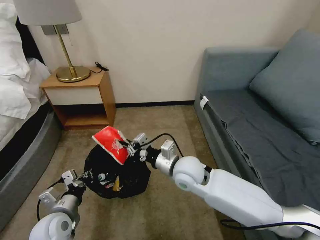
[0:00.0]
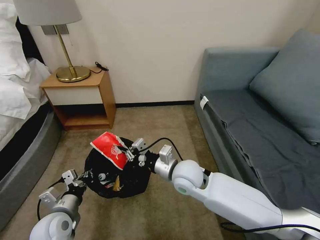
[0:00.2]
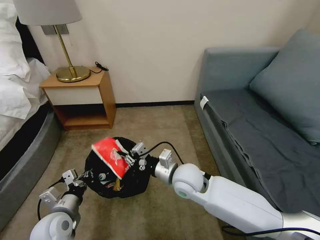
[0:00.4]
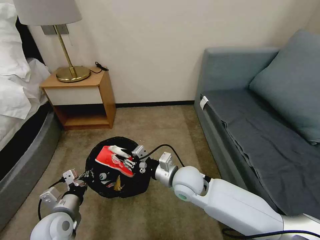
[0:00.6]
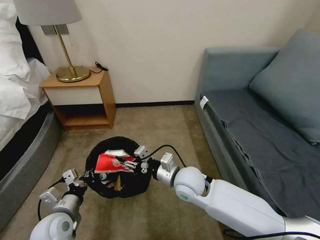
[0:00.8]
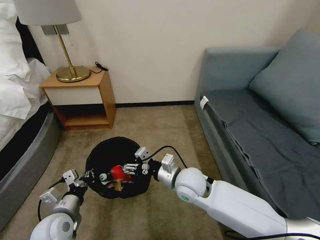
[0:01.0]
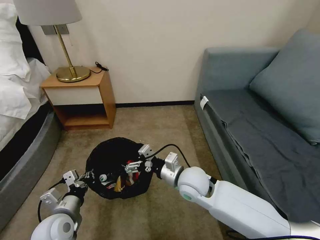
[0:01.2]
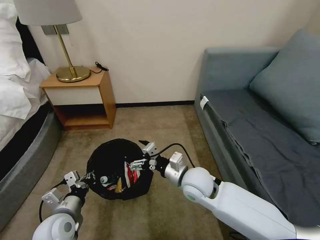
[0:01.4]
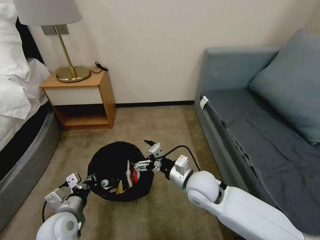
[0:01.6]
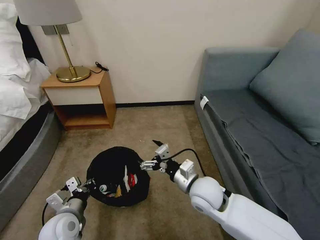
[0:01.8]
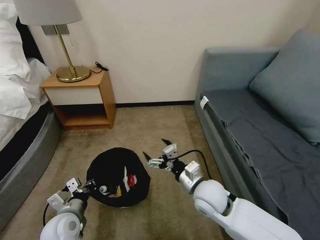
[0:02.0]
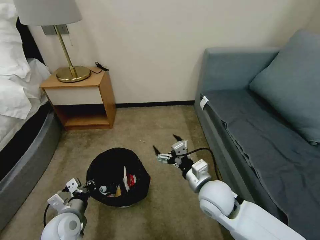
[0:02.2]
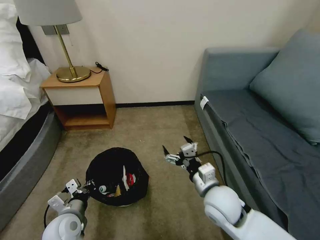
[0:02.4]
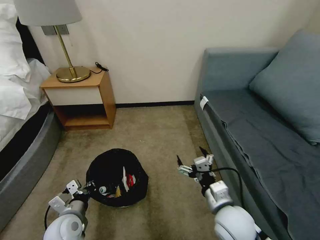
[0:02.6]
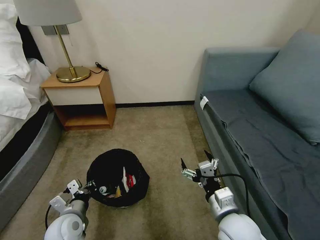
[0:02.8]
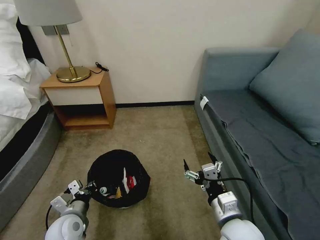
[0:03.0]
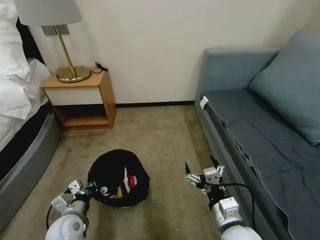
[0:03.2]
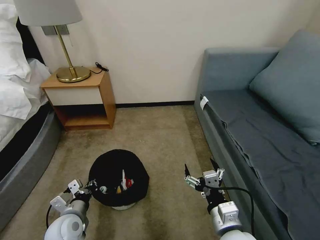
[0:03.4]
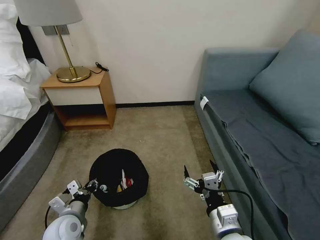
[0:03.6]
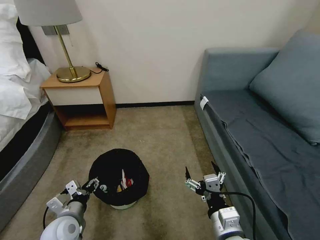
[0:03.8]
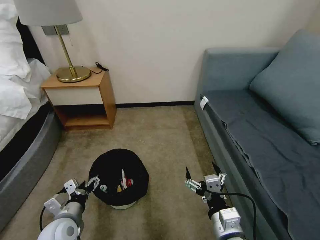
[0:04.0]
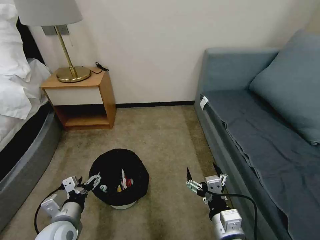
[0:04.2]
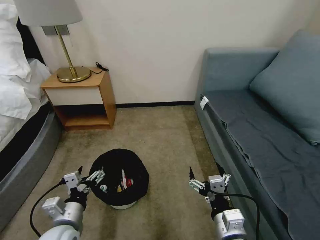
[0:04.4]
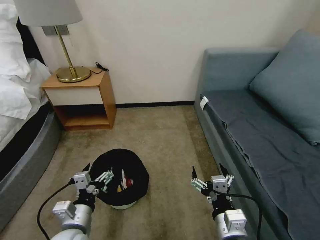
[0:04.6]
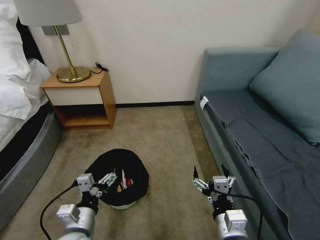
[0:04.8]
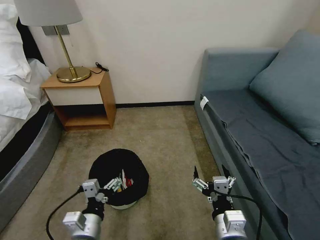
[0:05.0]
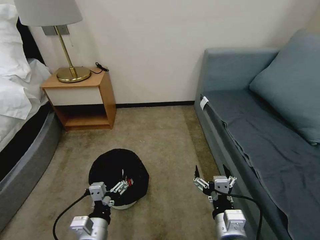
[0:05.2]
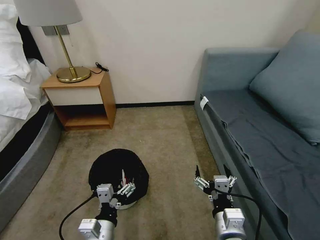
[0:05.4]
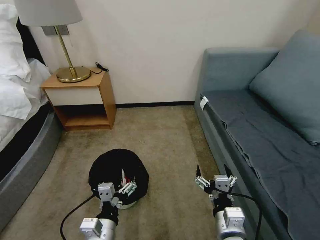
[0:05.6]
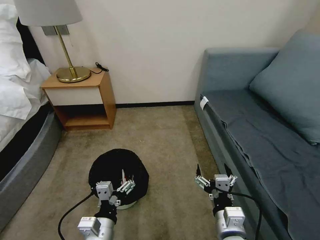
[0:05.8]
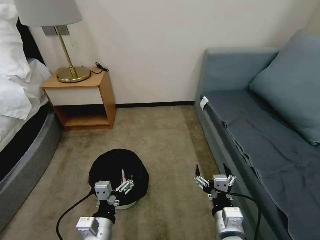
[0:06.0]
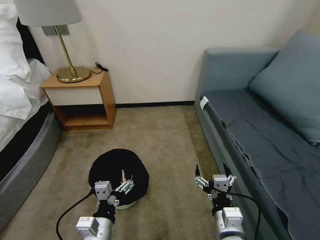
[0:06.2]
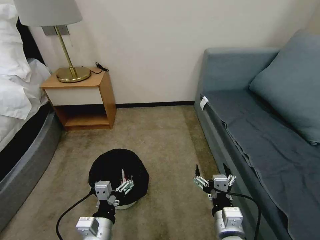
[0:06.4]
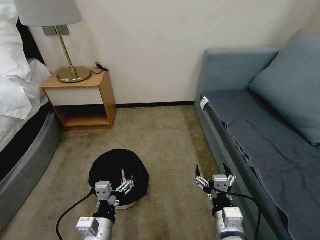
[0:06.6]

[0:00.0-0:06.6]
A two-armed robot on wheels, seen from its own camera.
Task of the whole recording: Pick up the trash bin, then pick up the garbage on the floor and place it into the trash bin.
0:00.0 to 0:01.6: The right gripper changes place by roughly 5 cm, and opens its fingers.
0:01.6 to 0:03.2: The right gripper shifts some 15 cm backward and to the right.
0:03.2 to 0:05.0: The left gripper heads to the right and backward, covering about 10 cm, and opens up.
0:05.0 to 0:06.6: There are only small adjustments of the grippers.

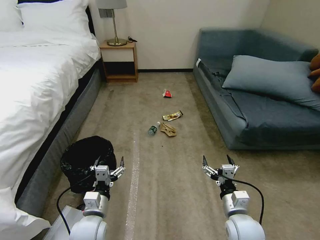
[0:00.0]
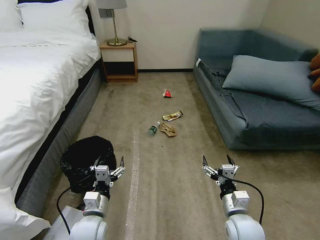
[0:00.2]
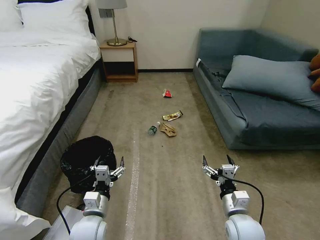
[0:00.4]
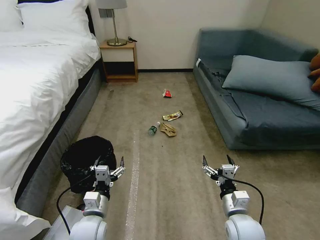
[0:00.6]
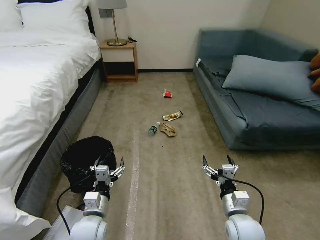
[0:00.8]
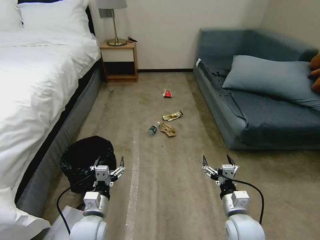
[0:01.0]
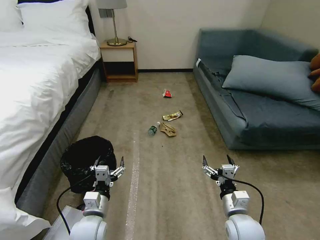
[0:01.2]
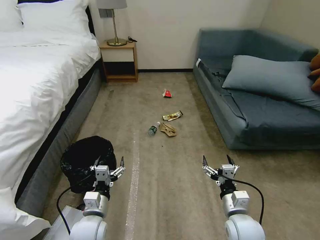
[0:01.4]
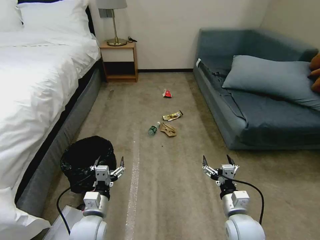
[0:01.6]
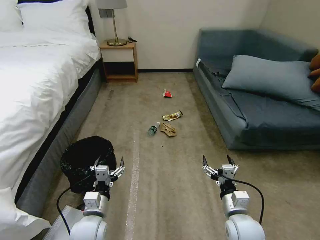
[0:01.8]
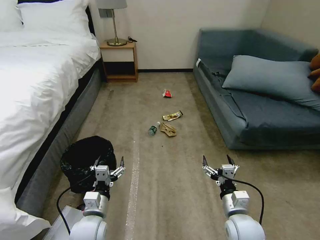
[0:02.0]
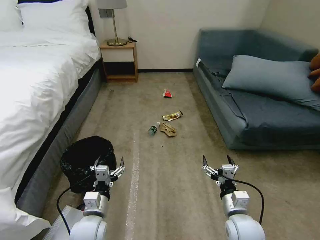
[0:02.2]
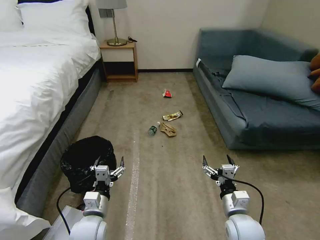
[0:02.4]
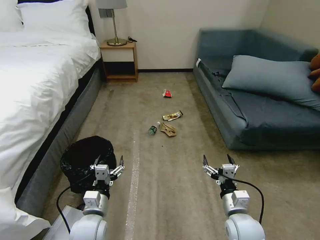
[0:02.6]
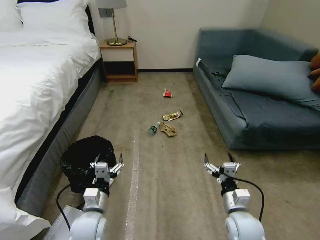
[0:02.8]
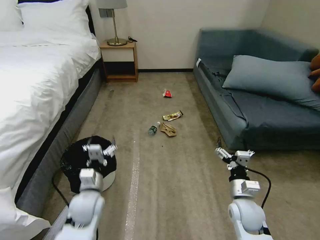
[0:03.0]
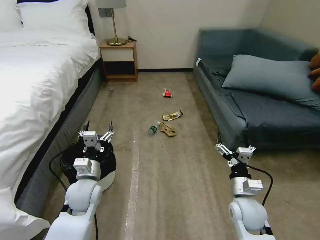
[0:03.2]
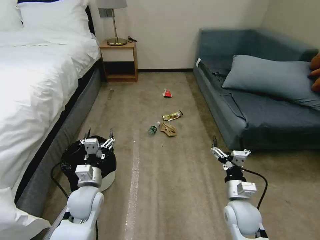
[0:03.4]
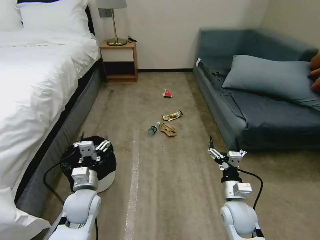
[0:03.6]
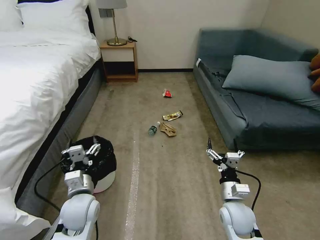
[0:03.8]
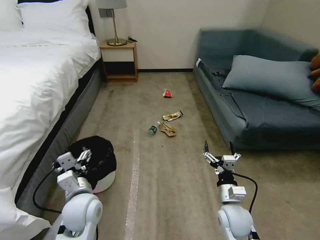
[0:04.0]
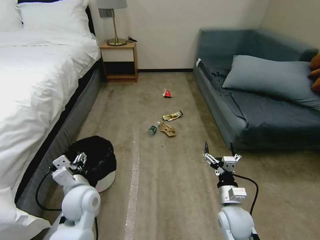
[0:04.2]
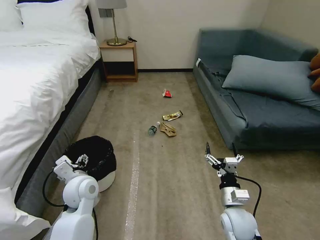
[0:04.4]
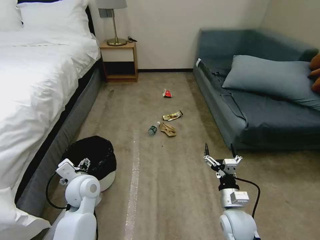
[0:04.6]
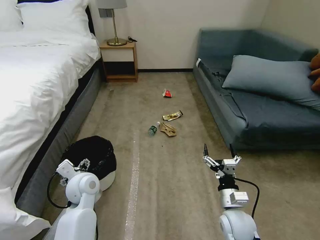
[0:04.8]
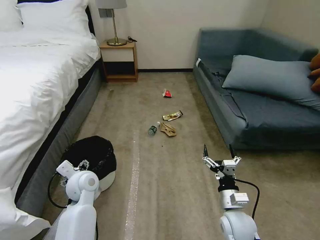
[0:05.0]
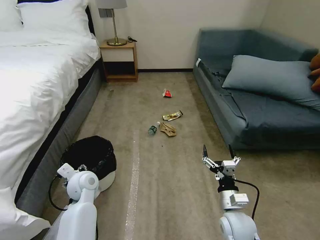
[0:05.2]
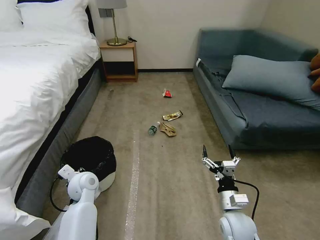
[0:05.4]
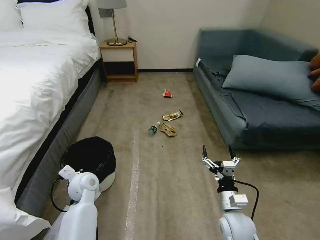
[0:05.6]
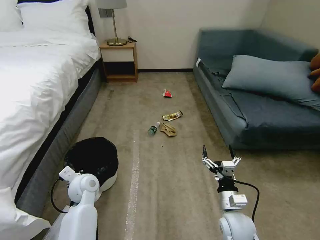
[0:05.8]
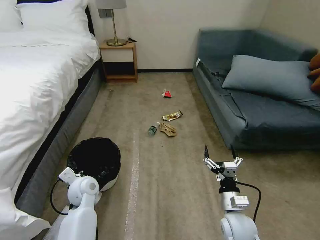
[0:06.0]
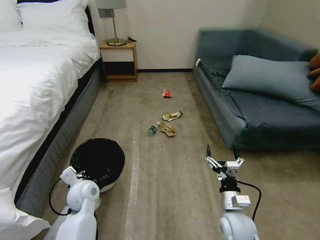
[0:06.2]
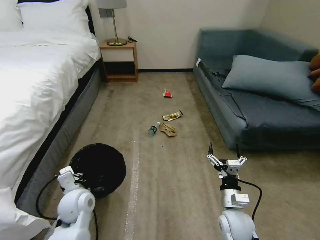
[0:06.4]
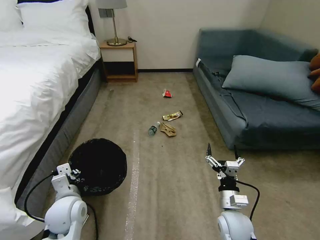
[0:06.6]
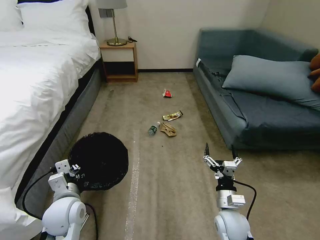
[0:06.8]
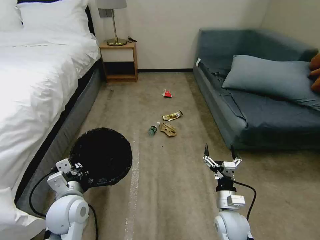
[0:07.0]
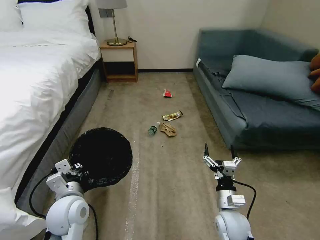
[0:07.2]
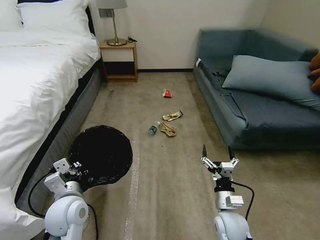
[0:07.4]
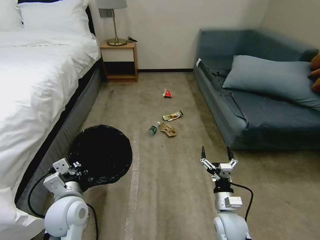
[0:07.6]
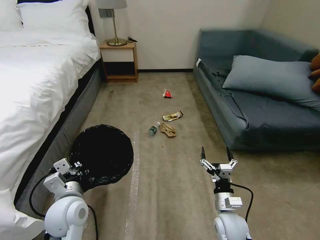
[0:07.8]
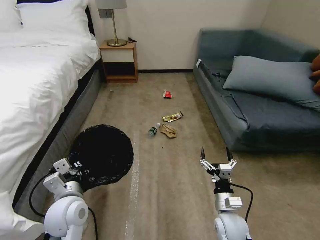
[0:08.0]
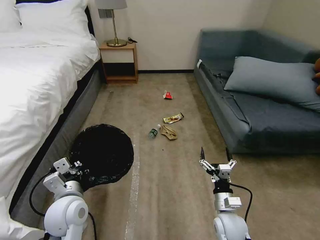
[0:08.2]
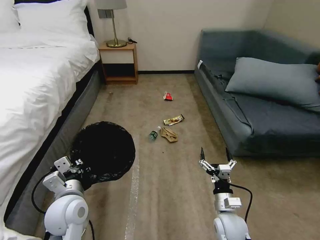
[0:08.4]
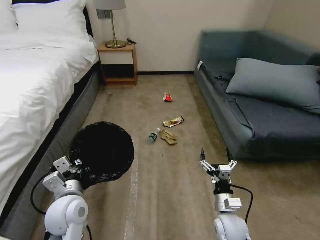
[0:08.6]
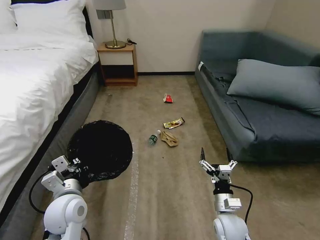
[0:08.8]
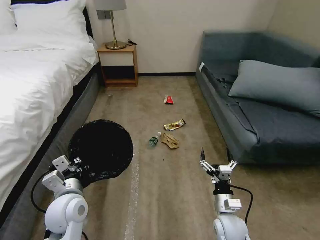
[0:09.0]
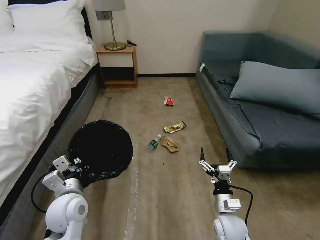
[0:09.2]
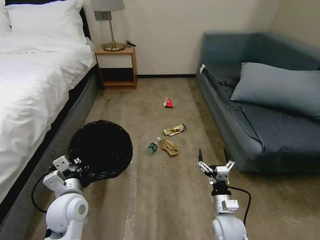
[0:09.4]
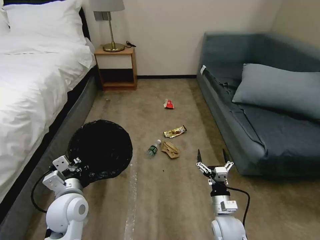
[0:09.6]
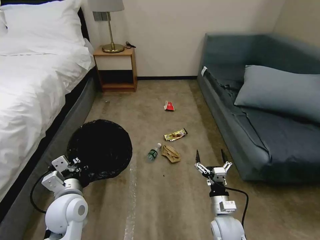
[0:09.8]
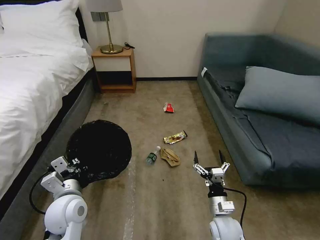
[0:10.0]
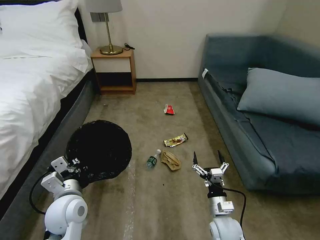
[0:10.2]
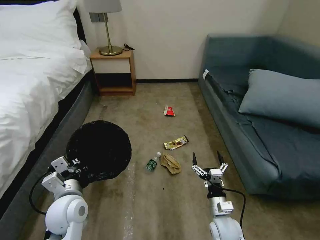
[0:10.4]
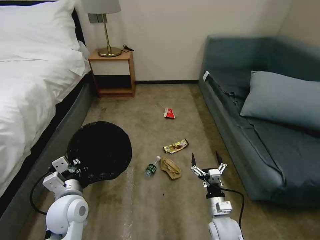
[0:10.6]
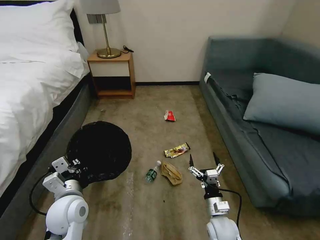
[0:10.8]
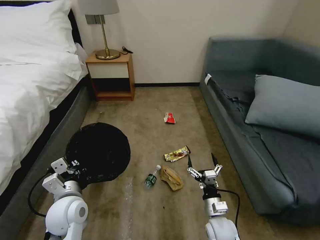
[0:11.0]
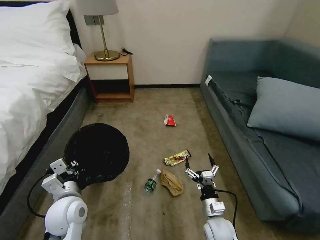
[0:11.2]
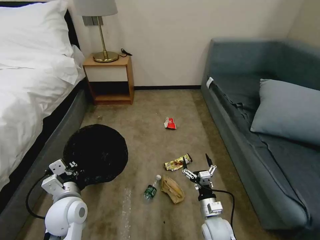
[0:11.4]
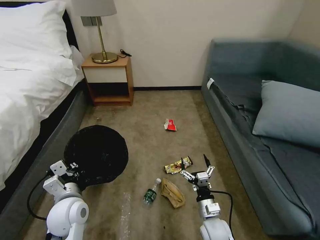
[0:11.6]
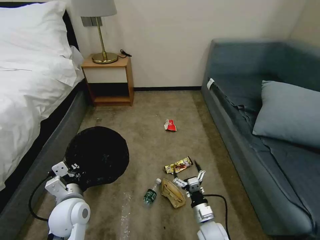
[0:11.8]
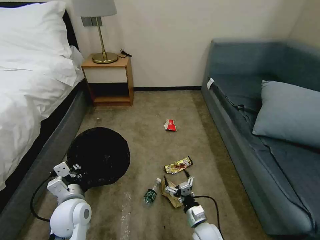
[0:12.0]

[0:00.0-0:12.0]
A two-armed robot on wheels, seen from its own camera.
Task of the whole recording: Pick up the trash bin, then pick up the garbage on the floor and place it into the trash bin.
0:01.6 to 0:03.0: The two grippers go roughly 5 cm forward.
0:04.4 to 0:06.0: The left gripper shifts about 5 cm downward, and closes its fingers.
0:06.0 to 0:07.6: The left gripper travels backward and upward by about 10 cm.
0:10.4 to 0:12.0: The right gripper goes about 5 cm downward.

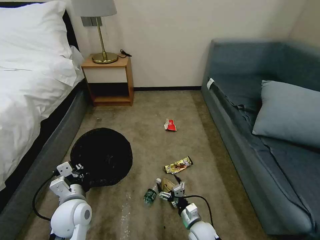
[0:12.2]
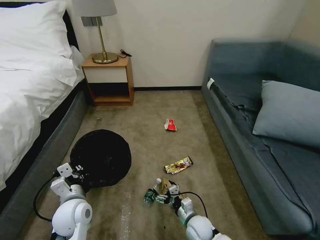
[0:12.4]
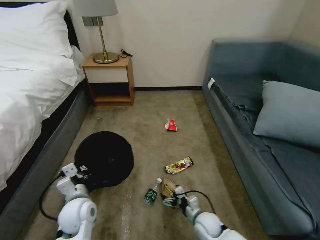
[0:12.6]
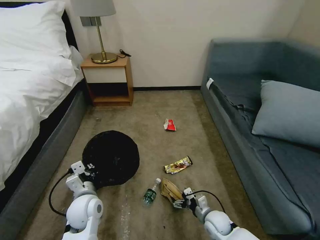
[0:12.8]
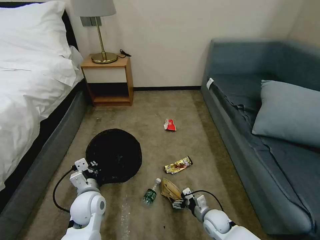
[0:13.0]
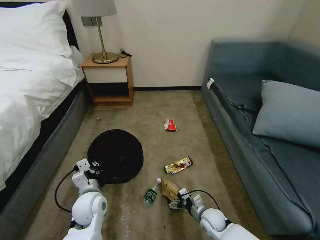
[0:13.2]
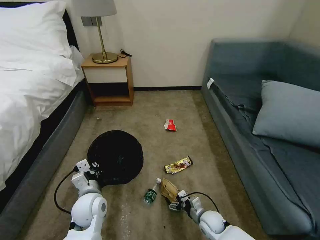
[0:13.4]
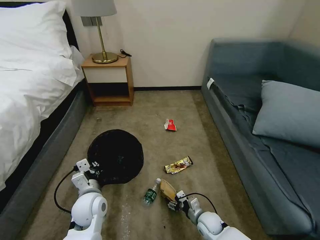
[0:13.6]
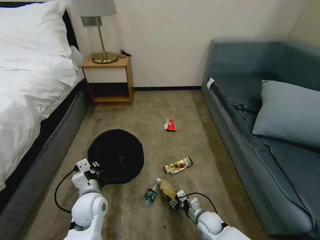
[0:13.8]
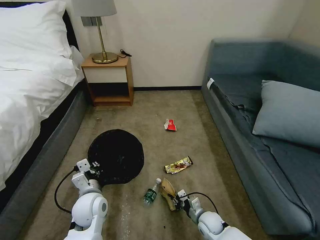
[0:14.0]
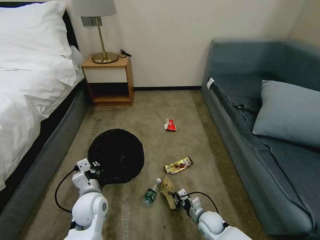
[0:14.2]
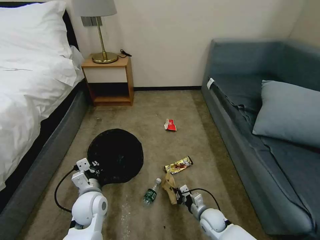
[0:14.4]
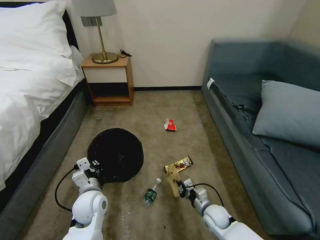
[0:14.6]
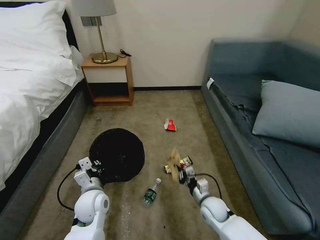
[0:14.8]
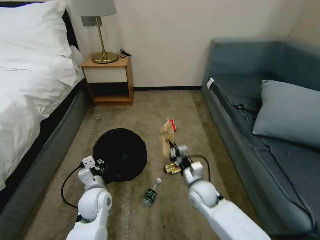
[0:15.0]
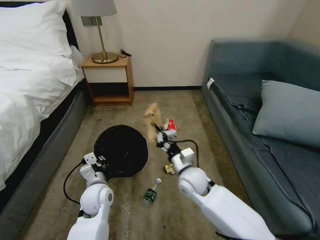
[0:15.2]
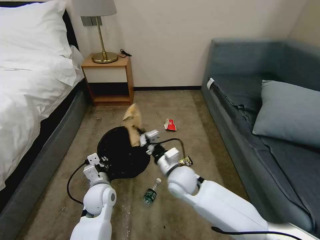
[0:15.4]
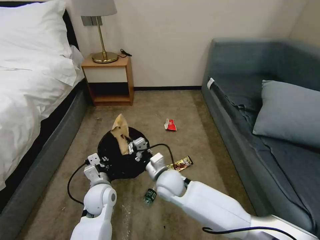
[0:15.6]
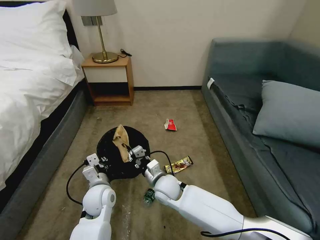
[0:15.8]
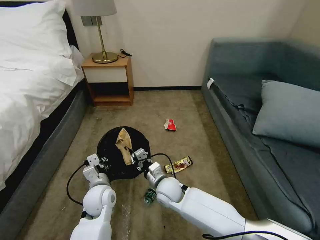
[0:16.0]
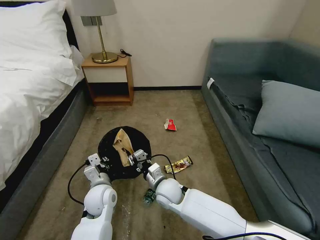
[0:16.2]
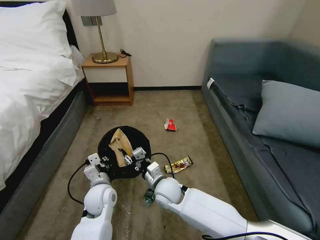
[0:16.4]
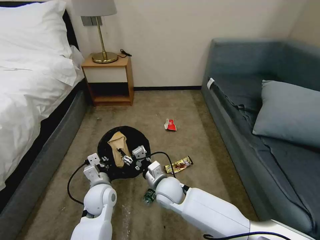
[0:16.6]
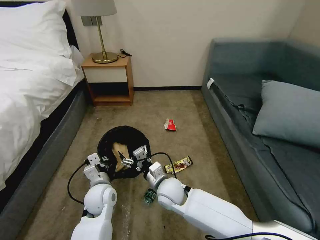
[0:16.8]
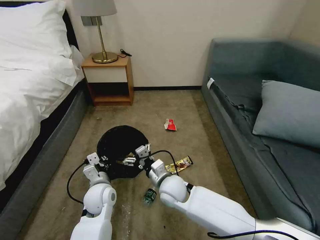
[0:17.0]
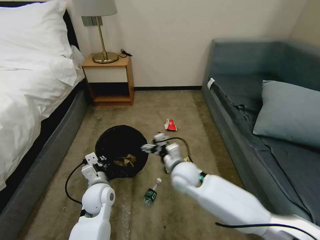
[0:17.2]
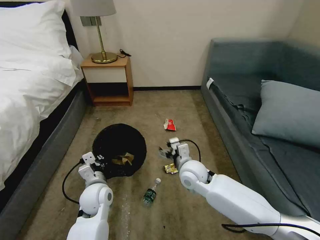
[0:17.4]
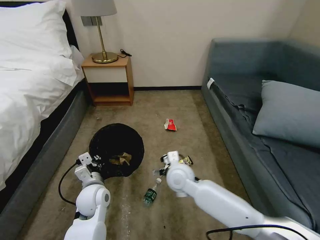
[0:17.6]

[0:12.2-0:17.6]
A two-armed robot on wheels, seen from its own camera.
Task of the whole recording: Pick up the trash bin, then pick up the garbage on the floor and place it into the trash bin.
0:12.2 to 0:13.6: The left gripper moves about 5 cm; the right gripper travels to the right by about 5 cm.
0:13.6 to 0:15.0: The right gripper shifts some 15 cm upward and forward, and closes up.
0:15.0 to 0:16.2: The right gripper heads to the left, covering about 15 cm.
0:16.2 to 0:17.6: The right gripper goes about 5 cm upward, and opens.
